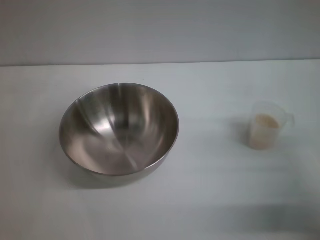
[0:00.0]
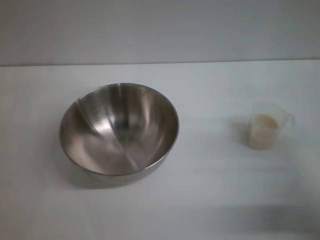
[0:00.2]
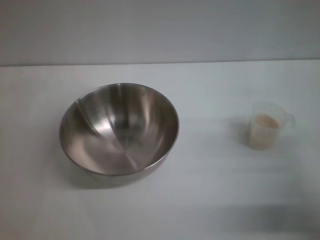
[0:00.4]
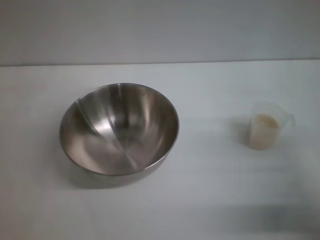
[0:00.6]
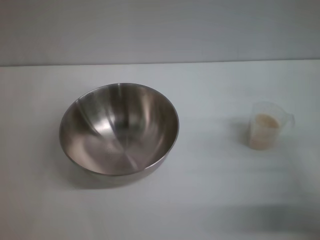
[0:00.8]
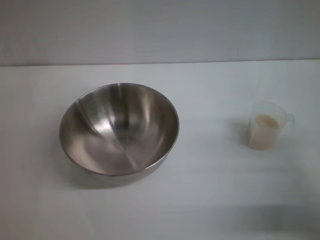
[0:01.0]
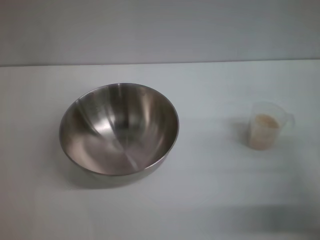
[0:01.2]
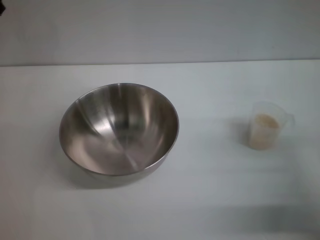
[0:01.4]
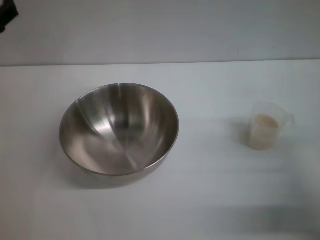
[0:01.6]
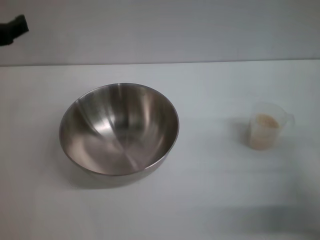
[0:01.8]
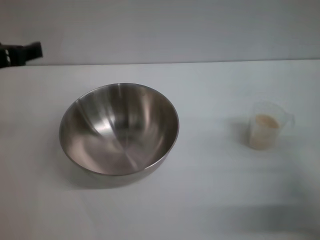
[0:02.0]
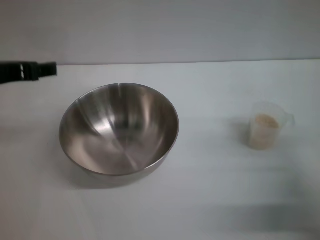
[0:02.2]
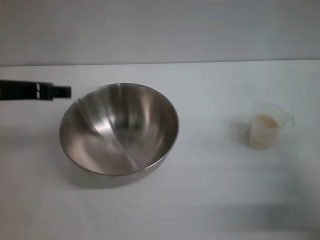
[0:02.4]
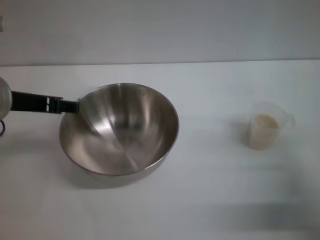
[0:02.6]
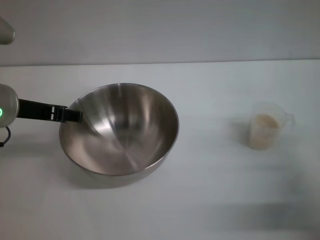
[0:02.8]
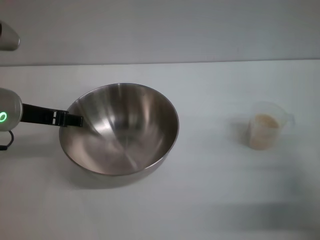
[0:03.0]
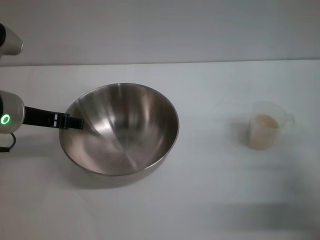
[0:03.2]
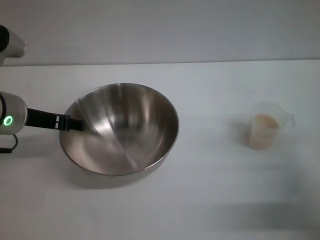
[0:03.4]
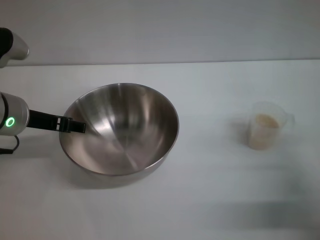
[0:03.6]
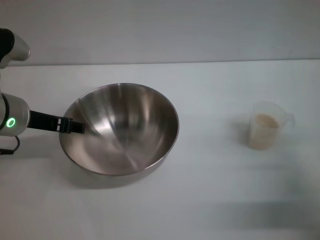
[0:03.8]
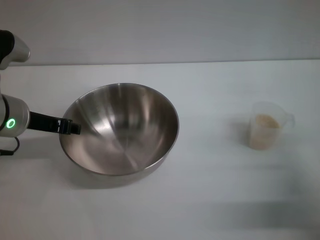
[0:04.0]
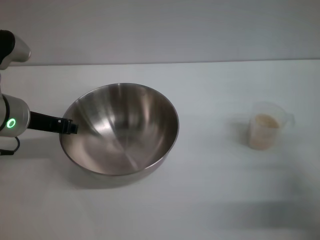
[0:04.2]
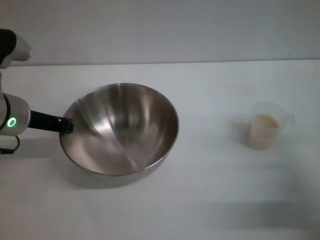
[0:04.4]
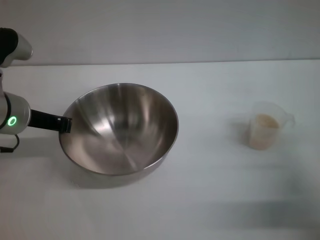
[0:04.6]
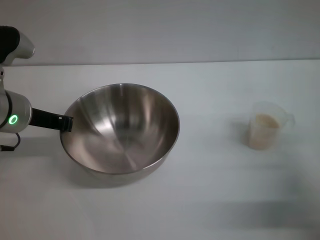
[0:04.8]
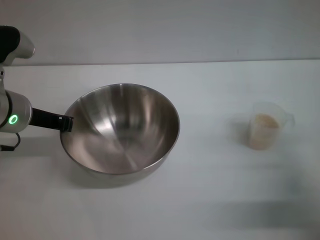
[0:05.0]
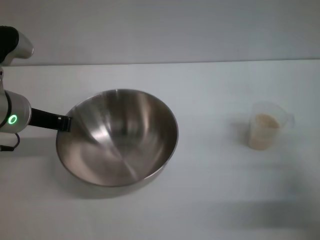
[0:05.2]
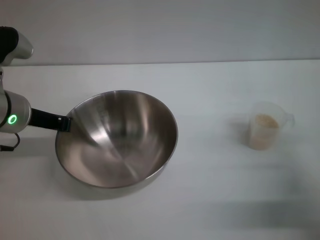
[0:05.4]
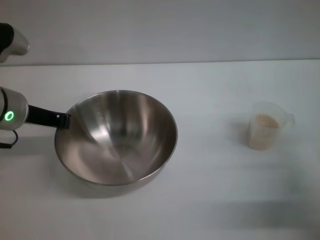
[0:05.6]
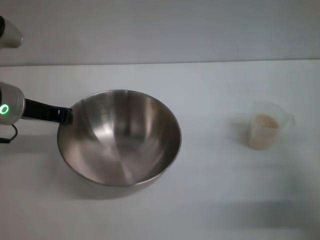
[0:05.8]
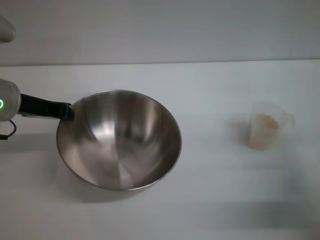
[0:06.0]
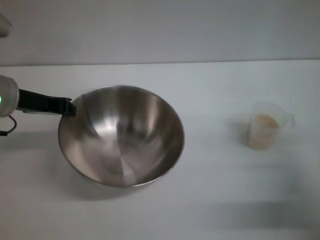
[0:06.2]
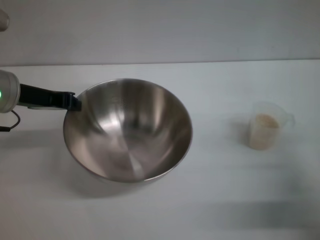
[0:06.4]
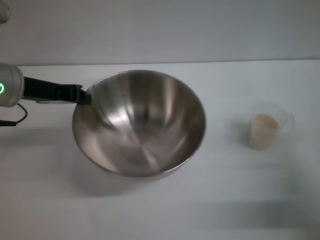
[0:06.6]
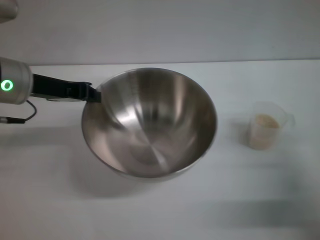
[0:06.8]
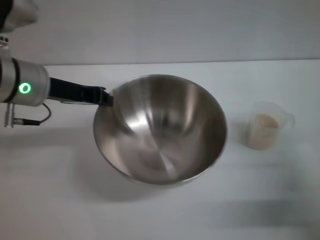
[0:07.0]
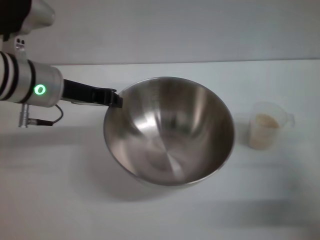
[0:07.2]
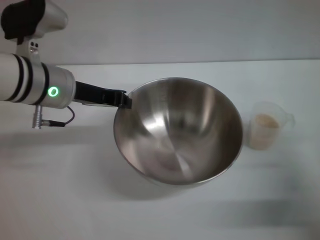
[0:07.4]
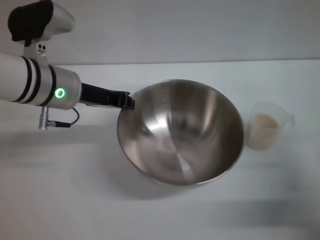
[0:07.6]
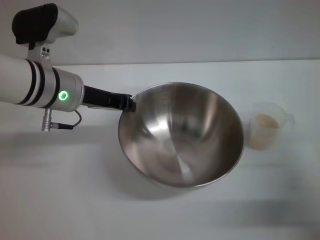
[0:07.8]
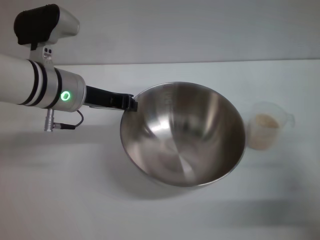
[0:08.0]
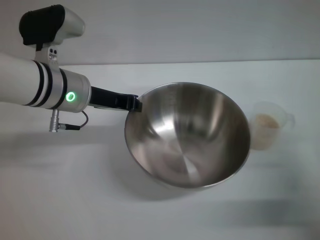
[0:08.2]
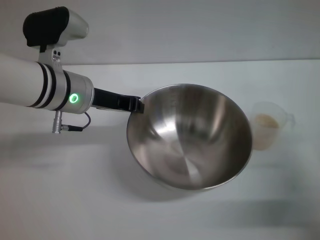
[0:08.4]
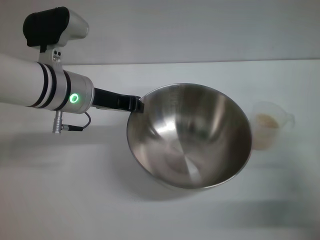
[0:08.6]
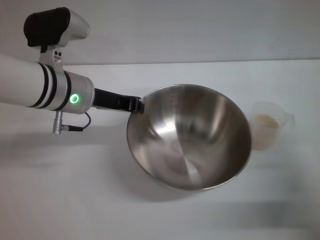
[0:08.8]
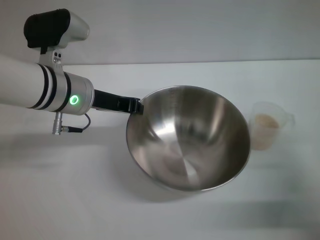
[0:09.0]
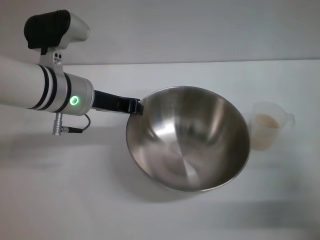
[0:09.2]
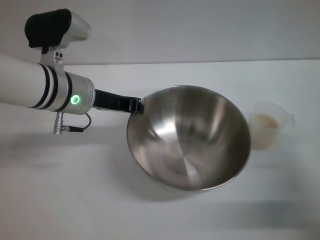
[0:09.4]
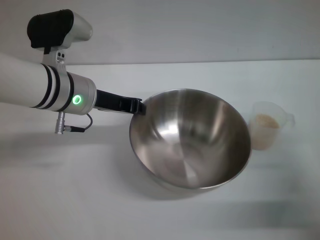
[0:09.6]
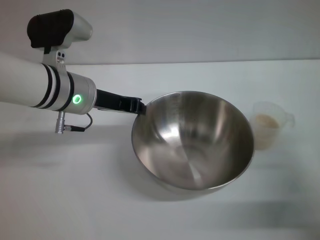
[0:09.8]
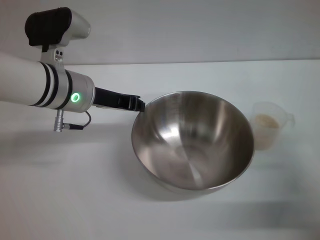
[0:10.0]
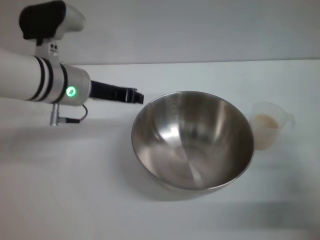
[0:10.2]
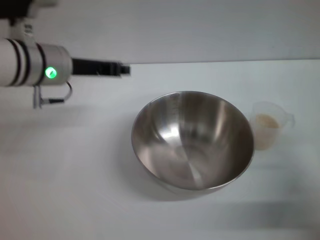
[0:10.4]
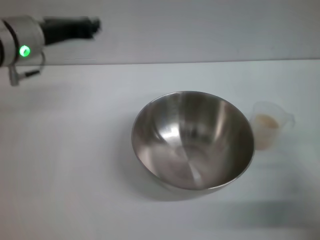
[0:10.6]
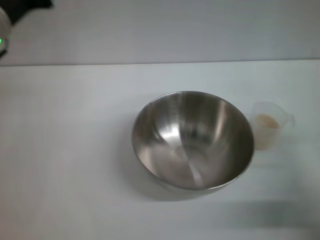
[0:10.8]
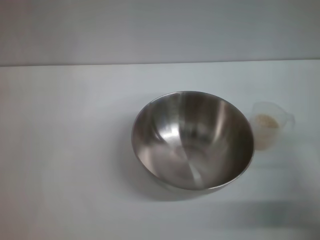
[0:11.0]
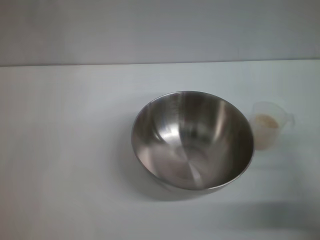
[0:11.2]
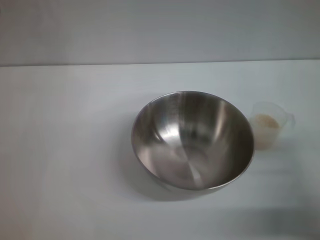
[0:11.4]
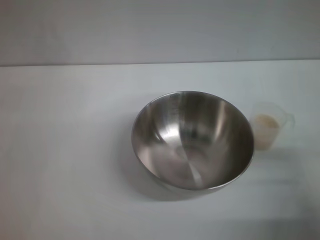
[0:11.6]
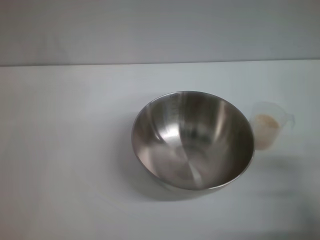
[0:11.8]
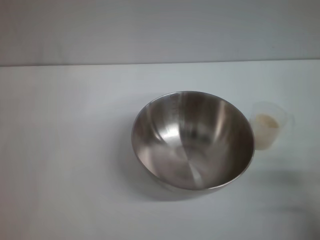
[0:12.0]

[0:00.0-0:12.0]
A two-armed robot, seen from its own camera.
Task of the whole recording: Place the bowl in the middle of the table with one hand and pour the rice from the grain cup into it with the other hand.
Step, 0:00.0 to 0:06.8: Pick up the bowl with the left gripper.
Step, 0:07.0 to 0:10.2: Place the bowl in the center of view with the left gripper.
0:01.6 to 0:03.0: The left gripper ends up approximately 5 cm from where it was.
0:03.0 to 0:04.4: The left gripper closes up.
0:04.4 to 0:06.0: The left gripper closes its fingers.
0:06.0 to 0:07.6: The left gripper goes approximately 5 cm to the right.
0:07.6 to 0:10.4: There are only small adjustments of the grippers.
0:10.4 to 0:12.0: The left gripper travels backward, downward and to the left by some 20 cm; the right gripper shifts roughly 10 cm backward.

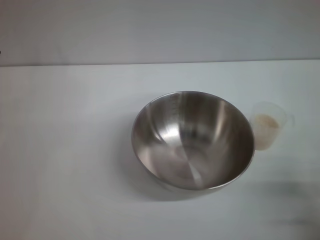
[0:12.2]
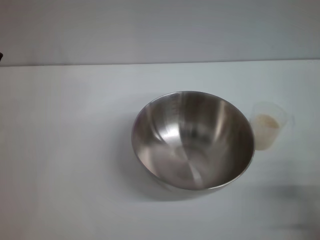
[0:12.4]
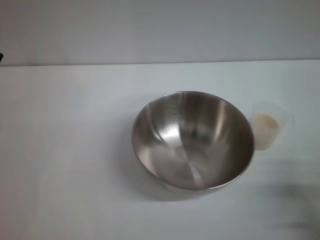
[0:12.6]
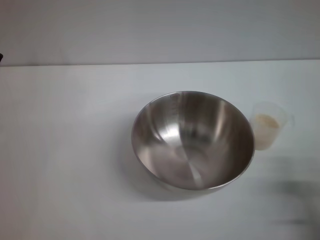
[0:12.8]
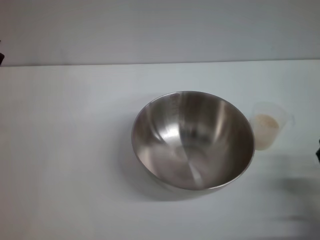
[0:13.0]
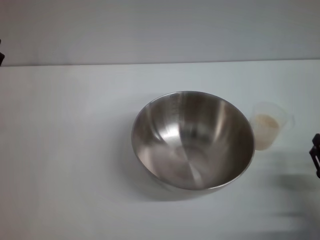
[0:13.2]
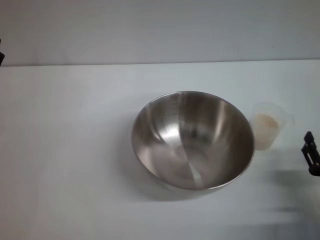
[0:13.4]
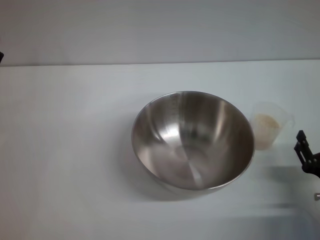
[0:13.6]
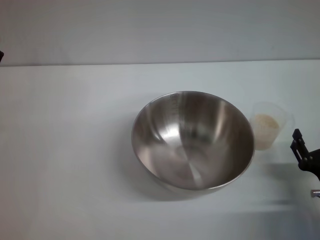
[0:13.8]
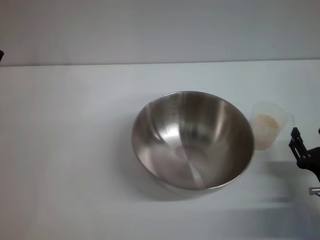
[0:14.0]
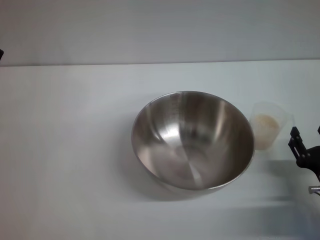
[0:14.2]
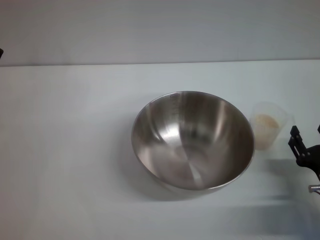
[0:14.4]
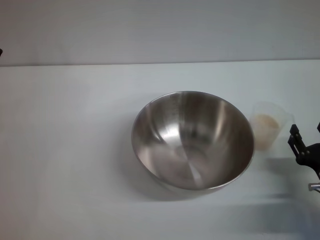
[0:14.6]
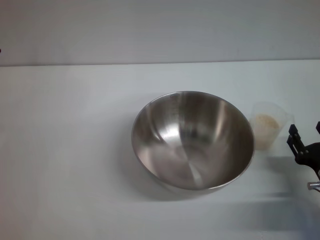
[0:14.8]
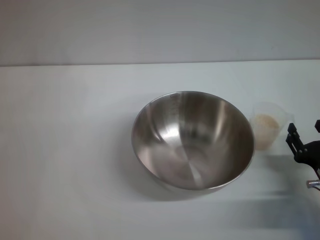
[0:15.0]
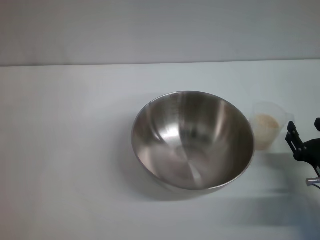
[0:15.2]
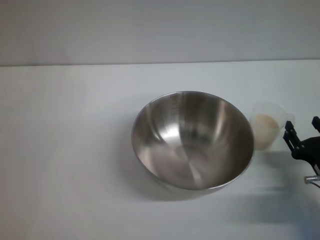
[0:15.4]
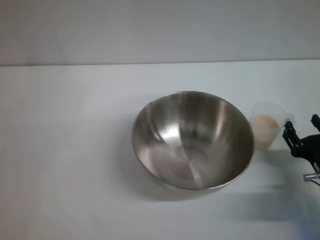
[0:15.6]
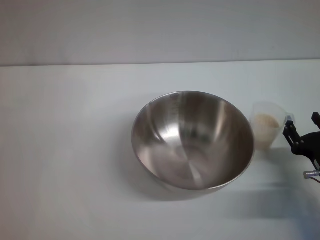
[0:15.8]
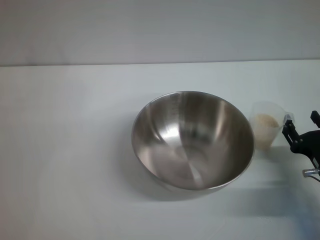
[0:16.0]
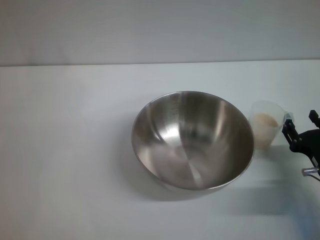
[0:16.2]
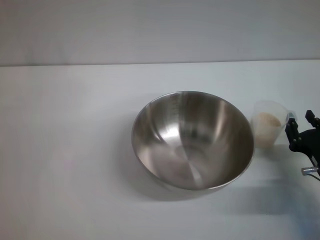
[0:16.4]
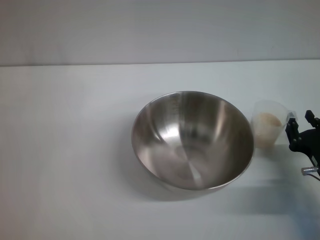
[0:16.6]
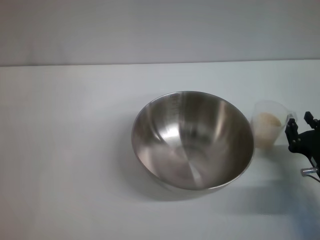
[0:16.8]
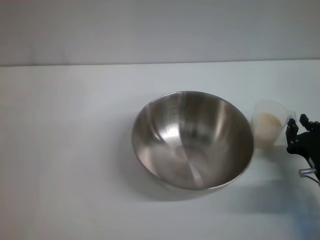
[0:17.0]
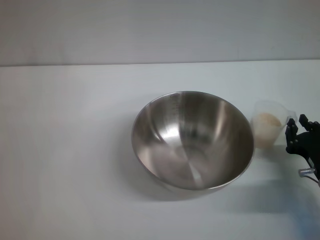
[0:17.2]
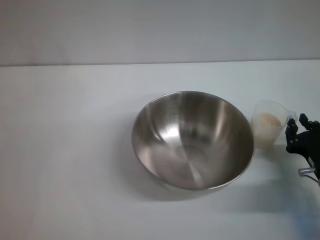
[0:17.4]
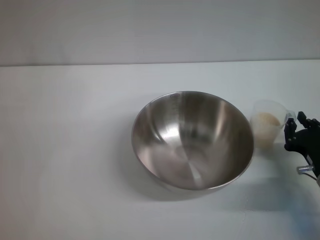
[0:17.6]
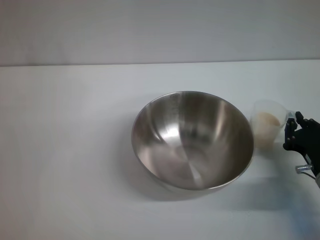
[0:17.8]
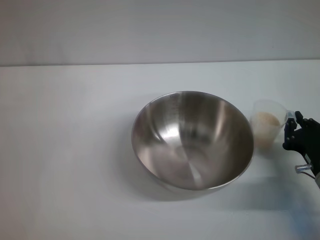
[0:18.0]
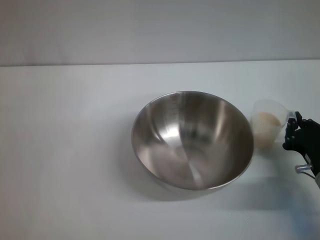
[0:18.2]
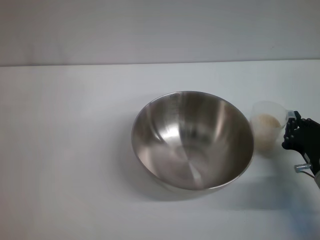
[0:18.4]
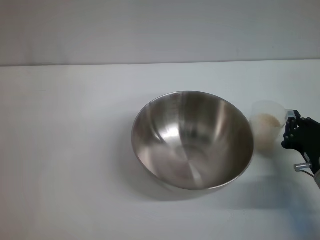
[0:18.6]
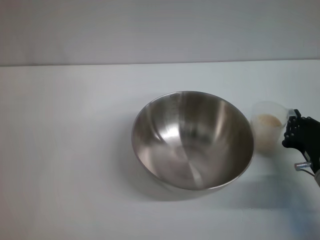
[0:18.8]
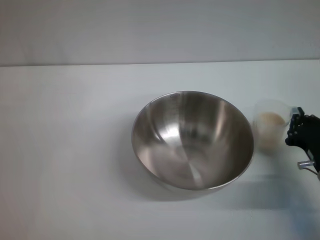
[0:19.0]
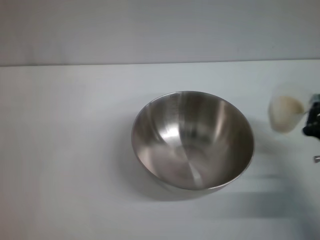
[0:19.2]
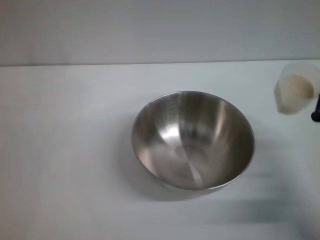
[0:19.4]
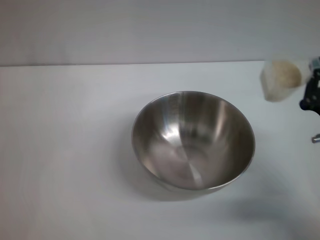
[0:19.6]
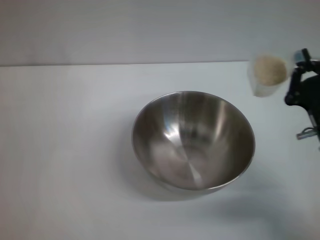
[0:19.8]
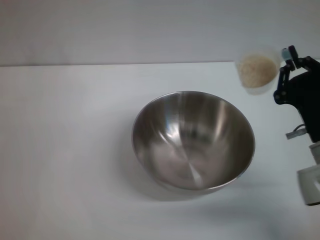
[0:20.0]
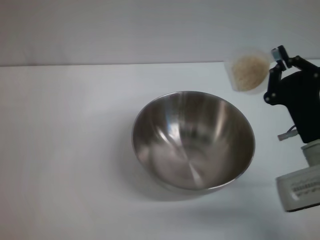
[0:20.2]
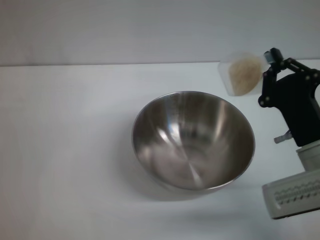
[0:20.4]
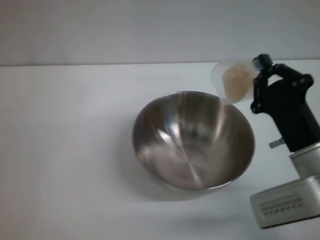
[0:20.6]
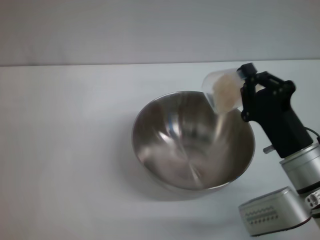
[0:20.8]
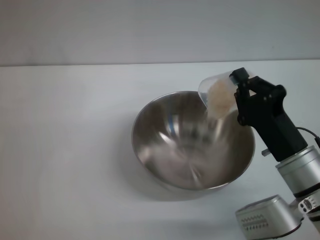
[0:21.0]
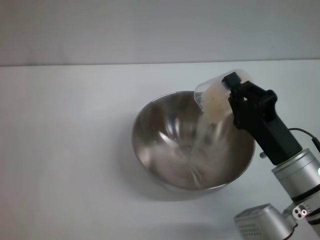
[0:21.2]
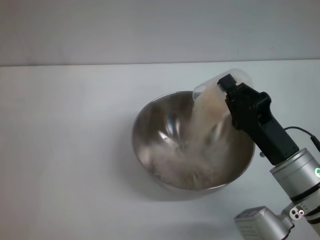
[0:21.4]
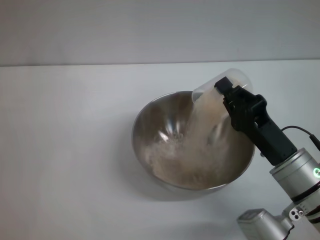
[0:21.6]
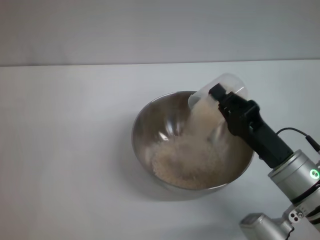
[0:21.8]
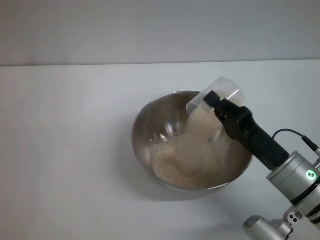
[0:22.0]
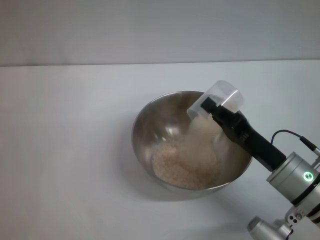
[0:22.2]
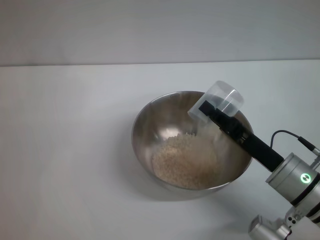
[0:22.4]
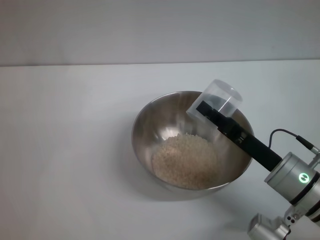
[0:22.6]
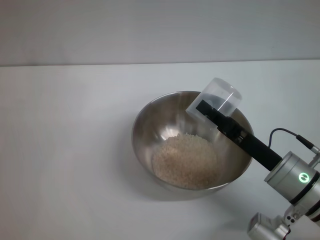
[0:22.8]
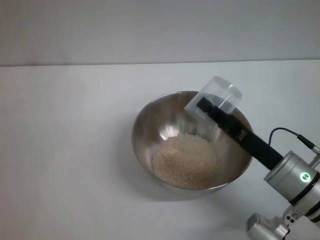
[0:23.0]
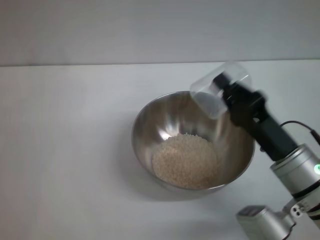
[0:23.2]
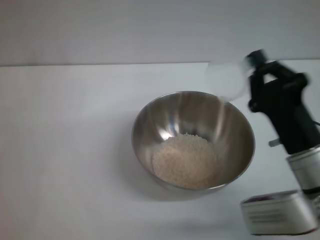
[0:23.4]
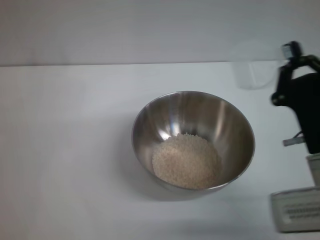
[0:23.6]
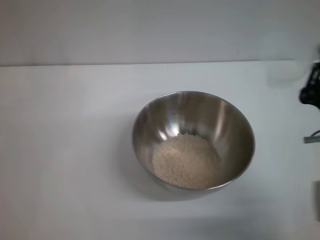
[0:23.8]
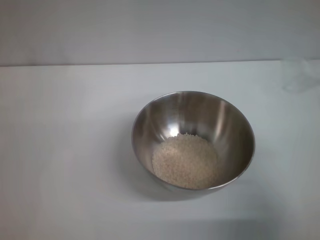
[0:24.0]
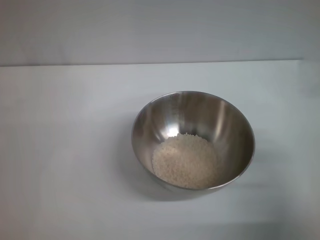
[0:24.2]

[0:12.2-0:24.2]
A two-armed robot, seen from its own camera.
Task of the whole recording: Place the bowl in the middle of the table with one hand and pour the rice from the grain cup into it with the other hand.
Step, 0:12.2 to 0:19.2: Pick up the cup with rice in it with the right gripper.
Step, 0:19.4 to 0:22.6: Pour the rice from the cup into the bowl with the right gripper.
0:12.2 to 0:13.8: The right gripper shifts some 5 cm forward.
0:13.8 to 0:16.6: The grippers stay close to where they were, moving slightly.
0:16.6 to 0:18.2: The right gripper closes.
0:18.2 to 0:19.8: The right gripper shifts some 5 cm upward.
0:19.8 to 0:21.2: The right gripper goes about 5 cm to the left.
0:22.6 to 0:24.2: The right gripper shifts about 5 cm to the right.
